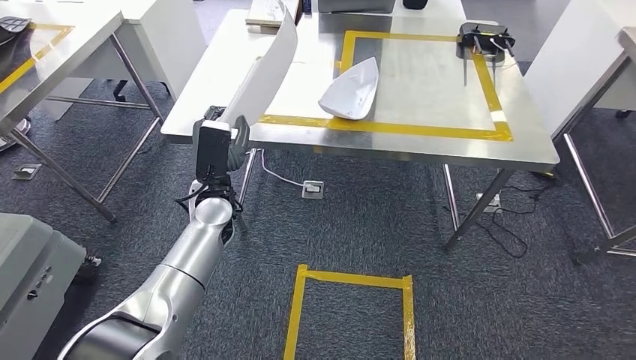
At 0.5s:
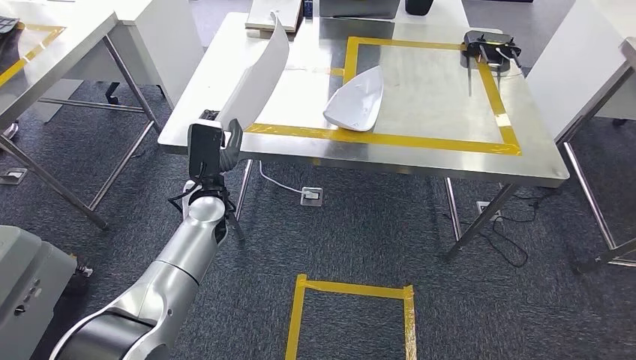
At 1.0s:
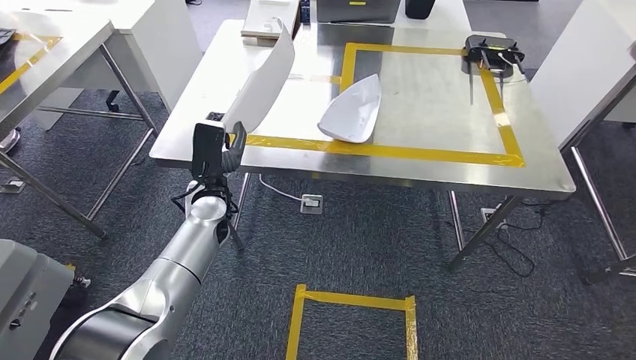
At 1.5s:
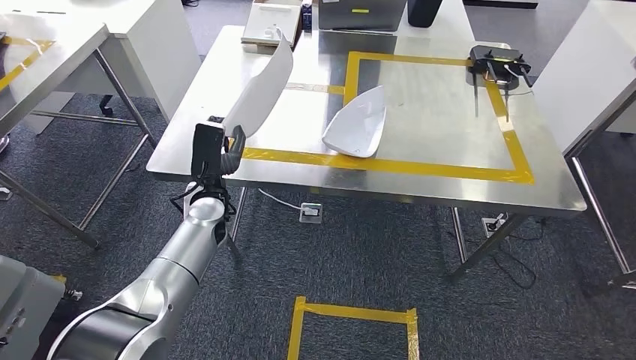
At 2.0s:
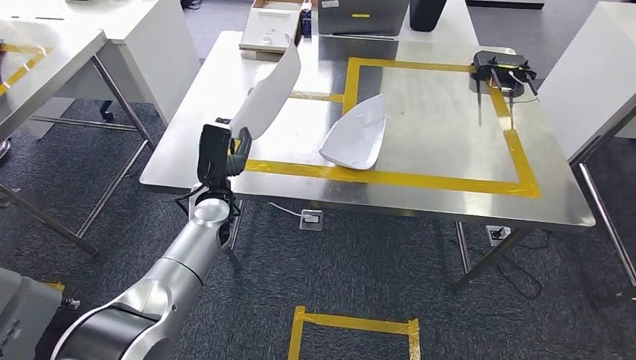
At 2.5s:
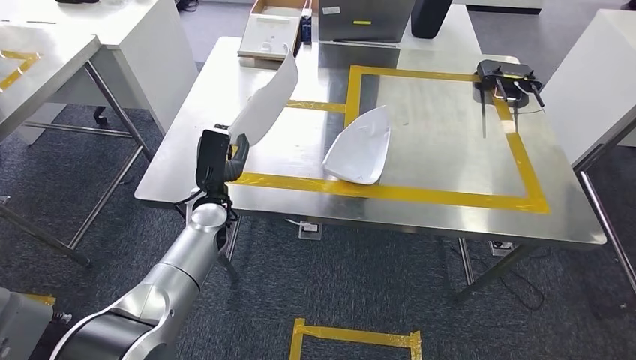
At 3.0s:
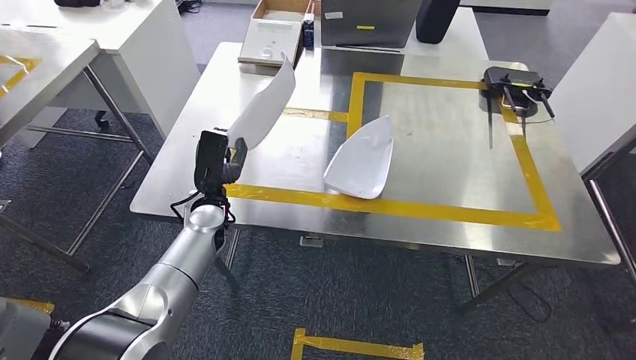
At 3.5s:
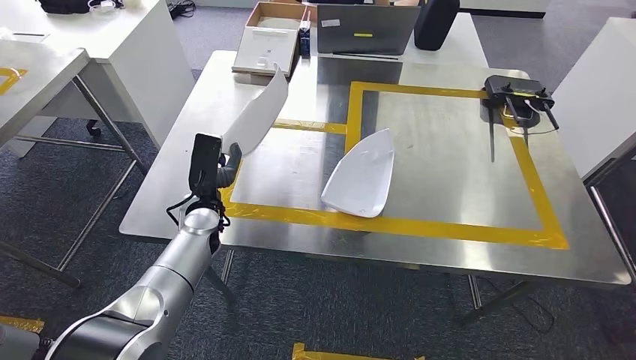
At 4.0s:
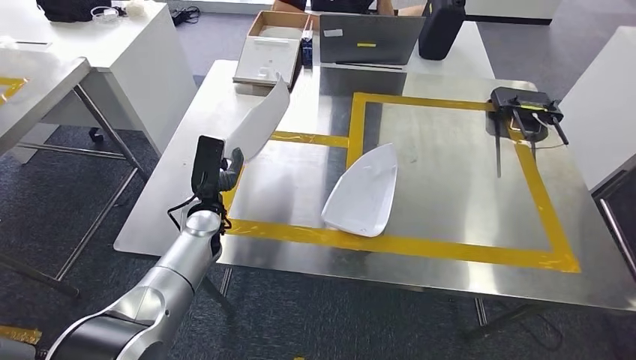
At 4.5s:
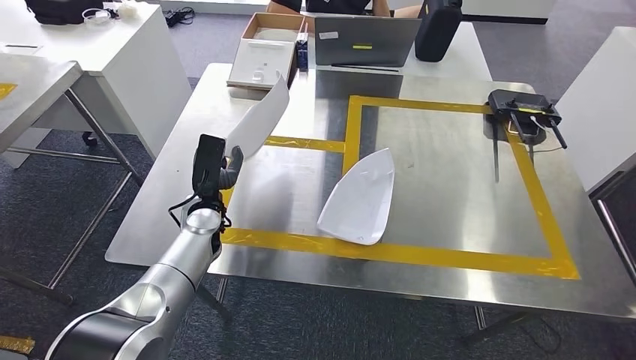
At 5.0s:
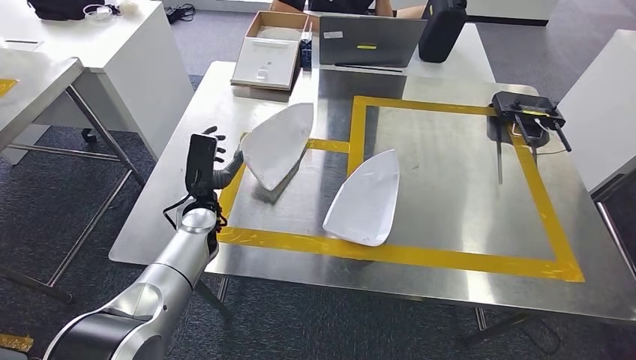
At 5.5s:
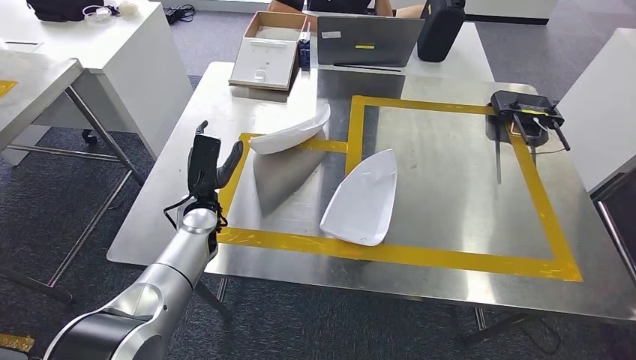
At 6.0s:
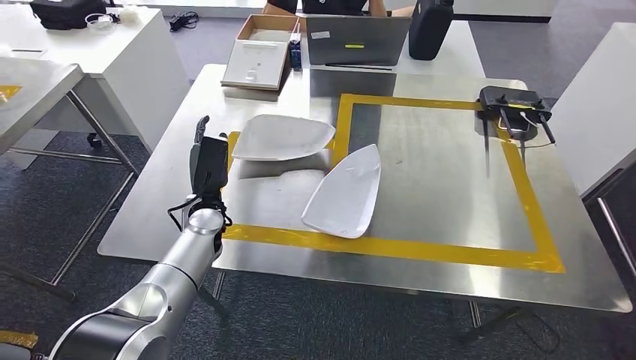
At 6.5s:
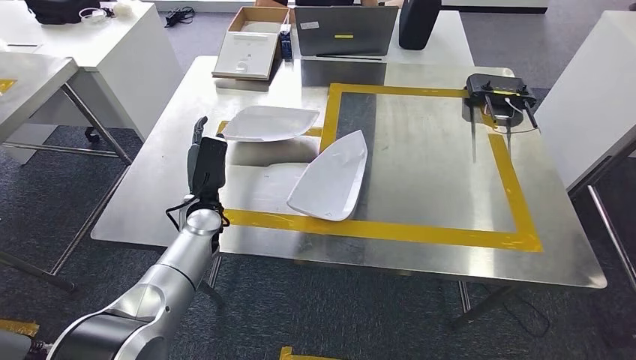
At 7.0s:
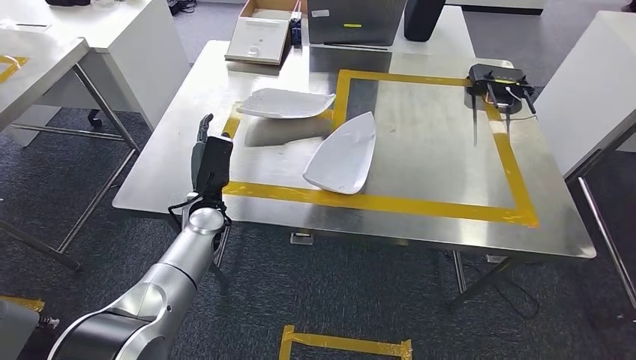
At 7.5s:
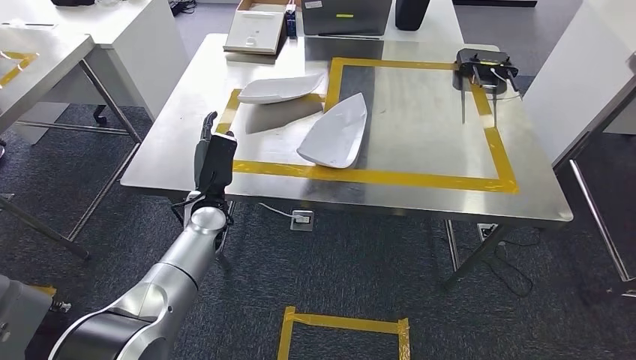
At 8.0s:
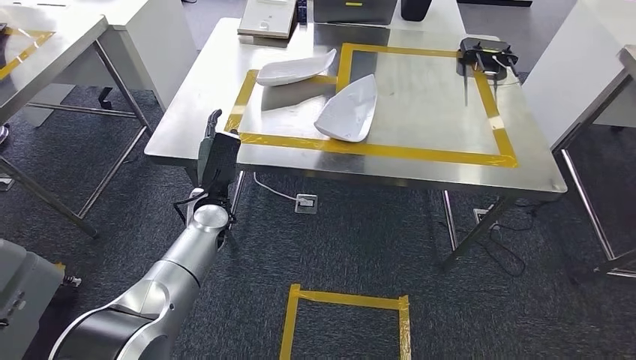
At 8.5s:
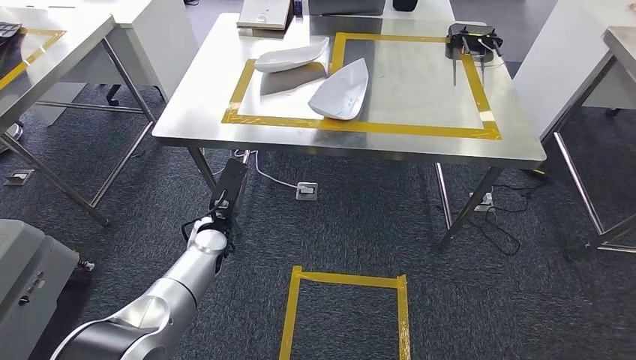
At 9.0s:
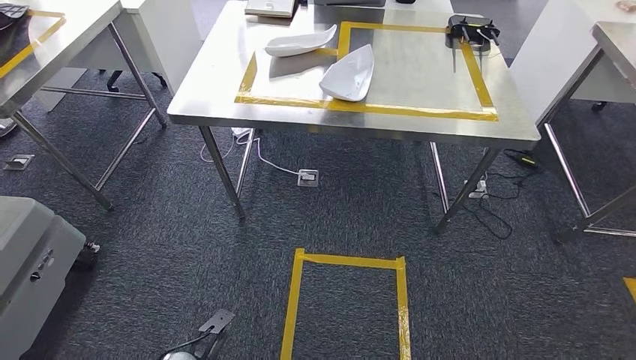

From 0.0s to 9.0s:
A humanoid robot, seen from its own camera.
Step, from 0.0s to 8.5s: Insert the small parts into the corresponding slots on the workbench.
